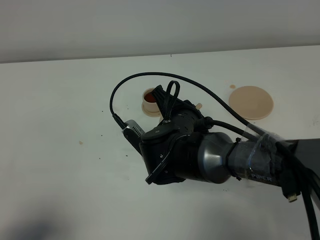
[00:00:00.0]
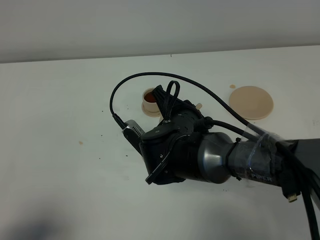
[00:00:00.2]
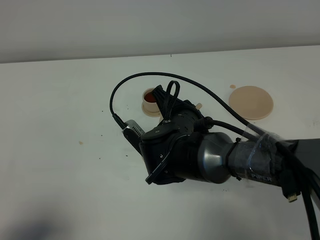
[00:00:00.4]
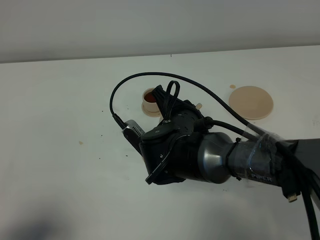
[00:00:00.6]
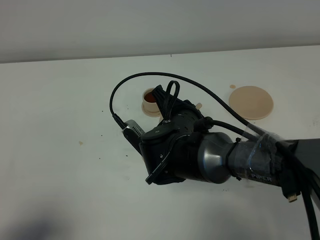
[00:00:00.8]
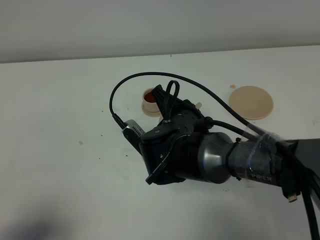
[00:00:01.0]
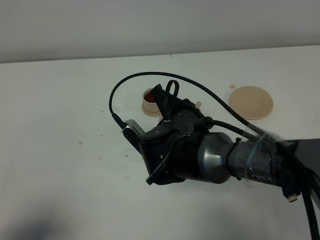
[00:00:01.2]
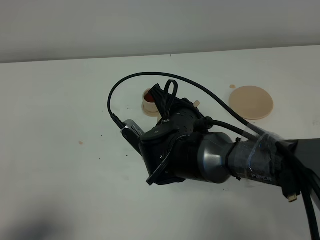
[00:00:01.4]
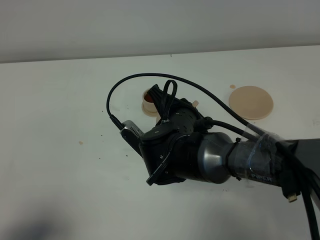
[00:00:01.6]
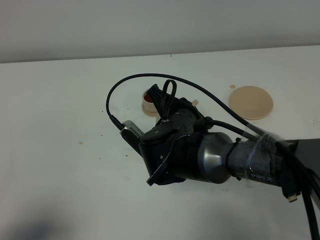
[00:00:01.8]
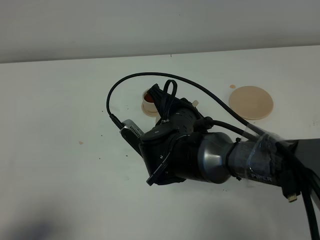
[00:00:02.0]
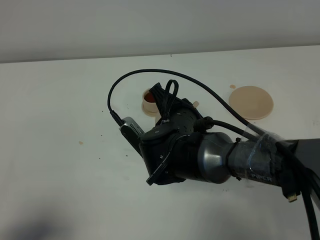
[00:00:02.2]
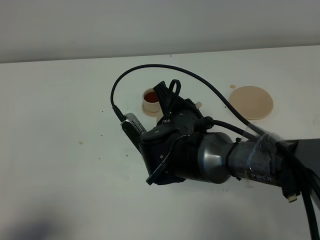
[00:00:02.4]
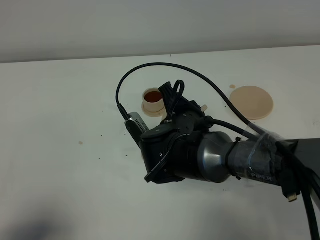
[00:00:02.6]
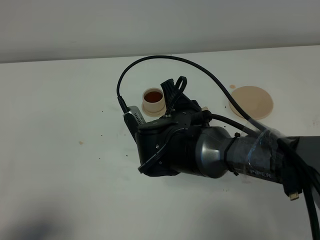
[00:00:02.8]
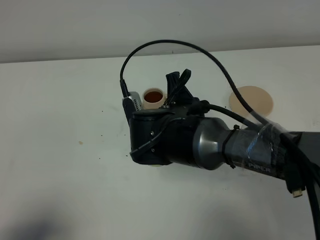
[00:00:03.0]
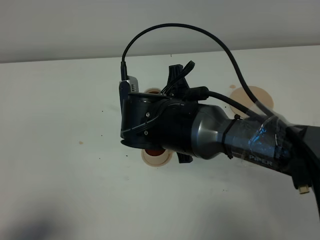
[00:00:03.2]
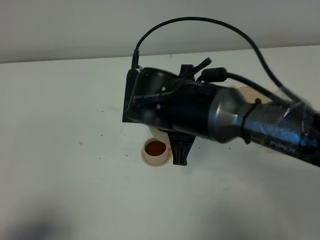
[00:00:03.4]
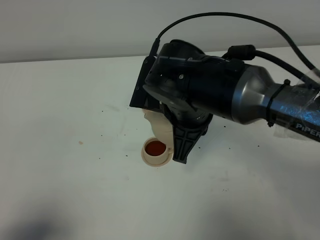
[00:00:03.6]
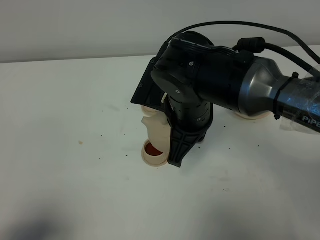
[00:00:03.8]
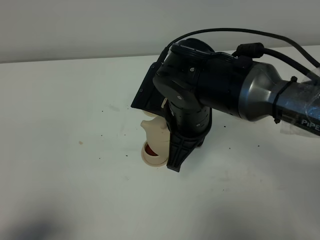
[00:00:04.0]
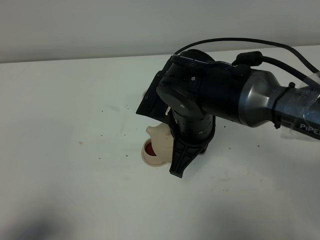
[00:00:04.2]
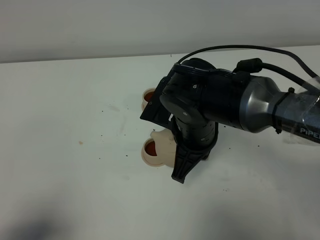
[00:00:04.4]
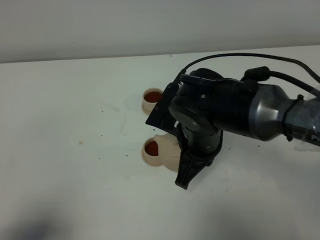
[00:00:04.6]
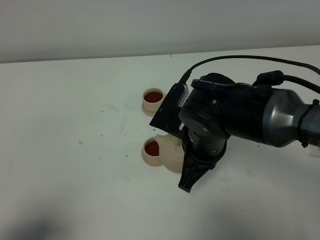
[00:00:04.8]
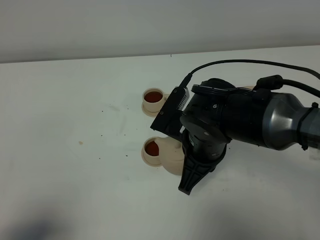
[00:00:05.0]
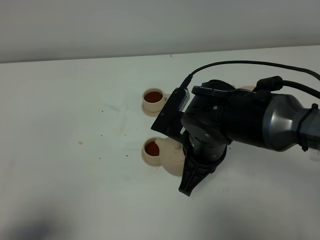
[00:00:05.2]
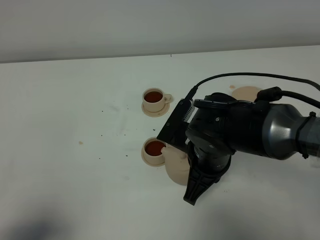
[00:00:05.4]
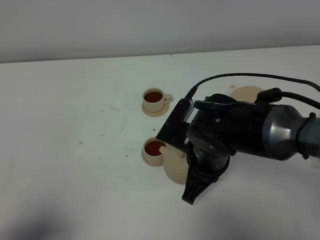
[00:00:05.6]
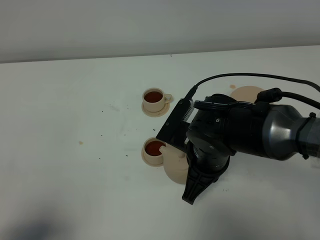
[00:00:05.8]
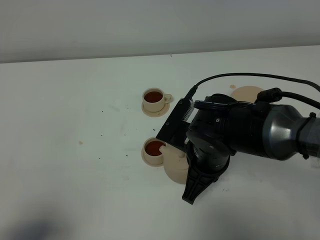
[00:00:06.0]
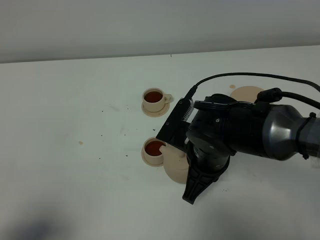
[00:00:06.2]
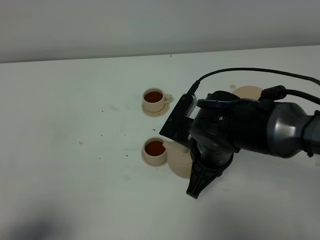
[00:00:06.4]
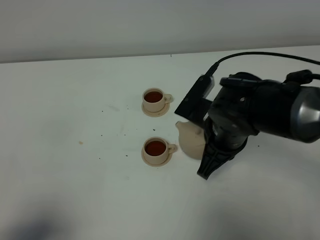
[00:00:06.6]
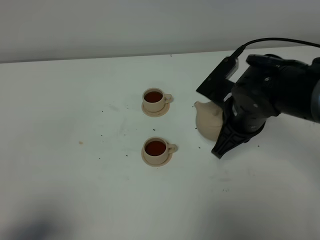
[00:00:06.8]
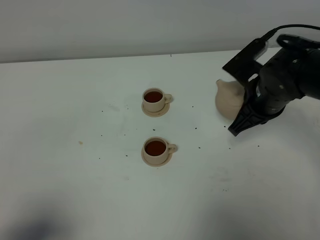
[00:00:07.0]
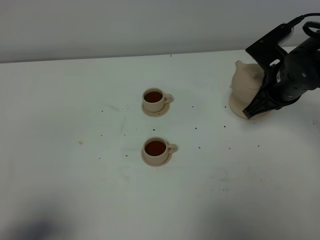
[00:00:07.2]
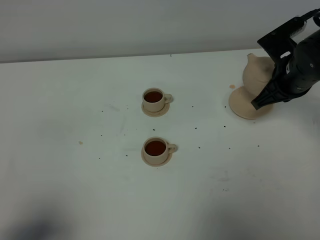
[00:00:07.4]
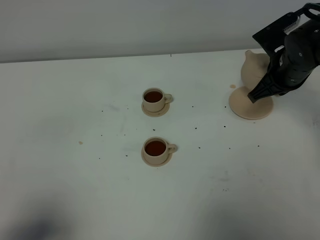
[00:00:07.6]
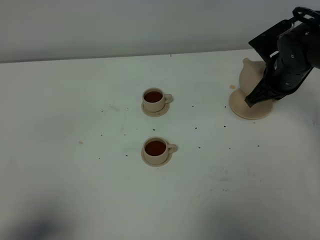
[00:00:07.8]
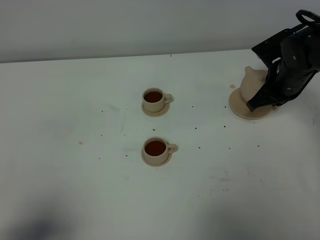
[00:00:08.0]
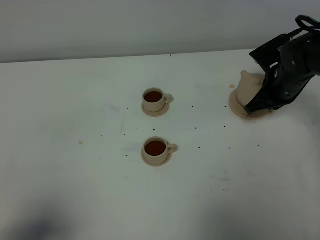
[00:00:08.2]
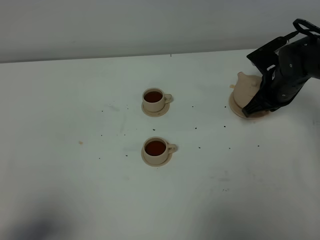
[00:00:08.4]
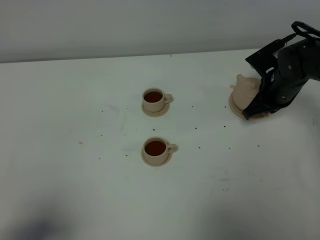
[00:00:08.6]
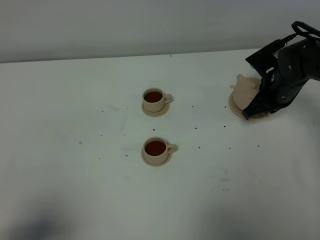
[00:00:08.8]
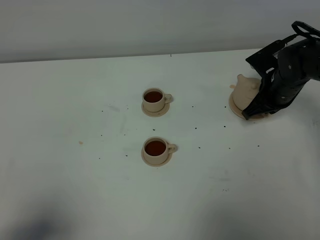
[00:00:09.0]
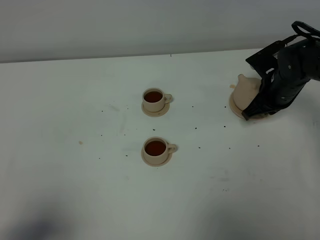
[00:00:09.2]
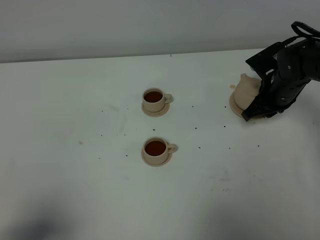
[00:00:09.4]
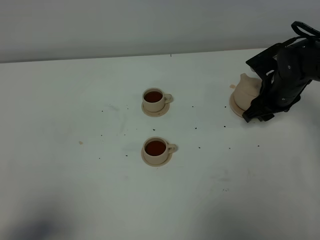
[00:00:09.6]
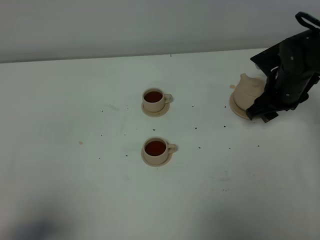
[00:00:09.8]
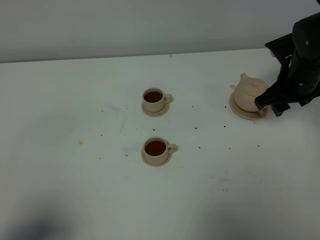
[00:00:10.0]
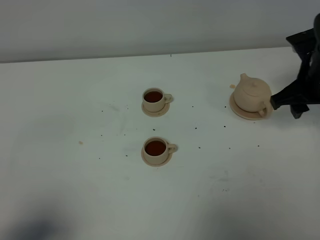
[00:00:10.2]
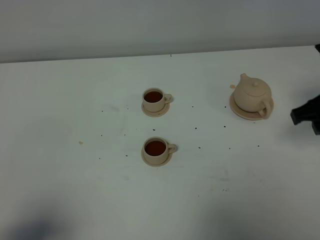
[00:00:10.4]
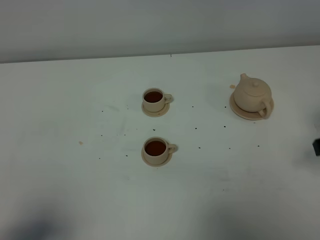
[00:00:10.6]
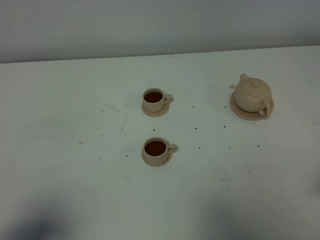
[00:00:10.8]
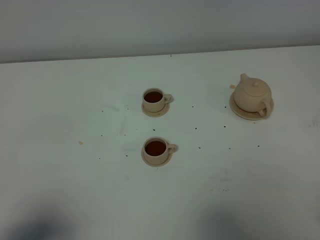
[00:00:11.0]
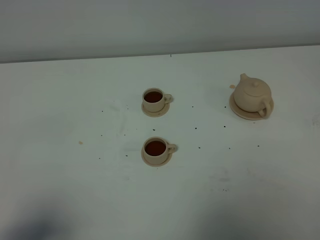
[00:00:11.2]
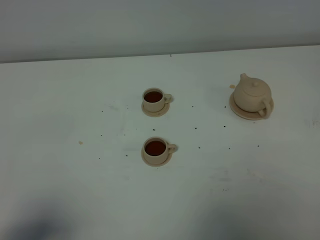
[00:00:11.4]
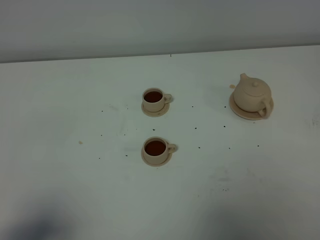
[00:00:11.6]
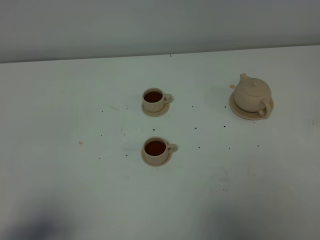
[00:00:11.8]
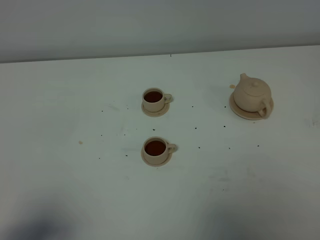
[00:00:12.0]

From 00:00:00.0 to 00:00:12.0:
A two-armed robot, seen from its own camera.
Task of the whole recording: grasp the brown teapot and pour the tea into the two brown teacups one by one, put the brown teapot back in its original place.
Step, from 00:00:00.0 to 00:00:03.2: Pour tea into the teacup with the right gripper.
From 00:00:00.0 to 00:00:01.6: The two grippers keep their place.
From 00:00:04.4 to 00:00:06.0: The grippers stay close to where they were, moving slightly.
From 00:00:06.0 to 00:00:07.6: The right gripper moves forward and to the right, approximately 20 cm.
From 00:00:07.6 to 00:00:09.0: The right gripper moves downward, roughly 5 cm.
From 00:00:09.0 to 00:00:10.4: The right gripper shifts some 20 cm backward, upward and to the right, and opens its fingers.
From 00:00:10.4 to 00:00:12.0: The right gripper heads backward, covering about 25 cm, and closes.

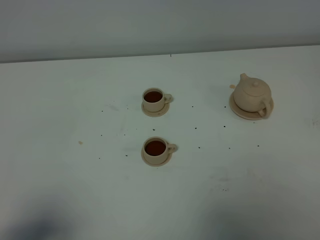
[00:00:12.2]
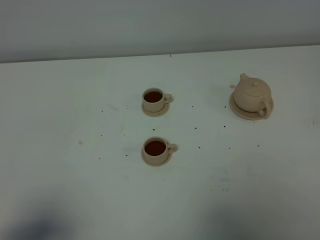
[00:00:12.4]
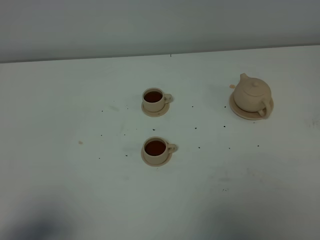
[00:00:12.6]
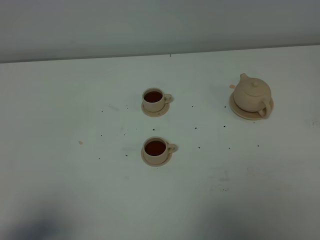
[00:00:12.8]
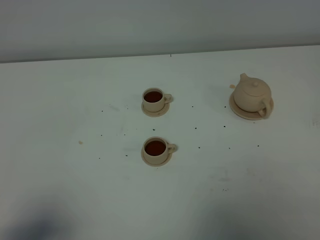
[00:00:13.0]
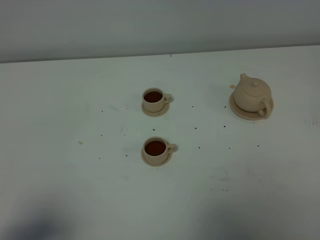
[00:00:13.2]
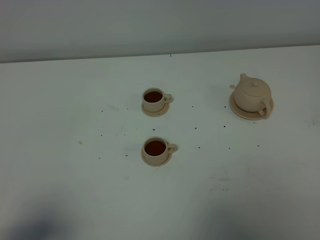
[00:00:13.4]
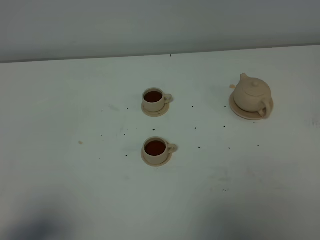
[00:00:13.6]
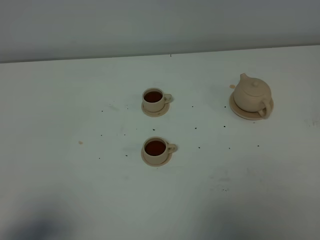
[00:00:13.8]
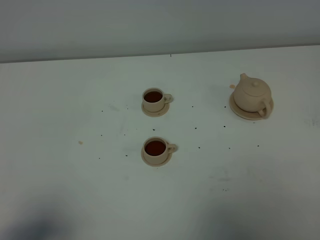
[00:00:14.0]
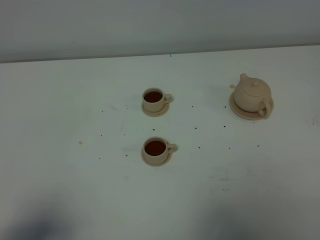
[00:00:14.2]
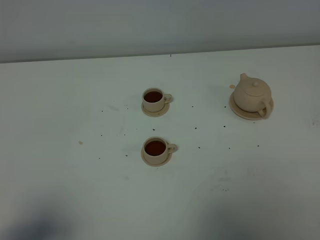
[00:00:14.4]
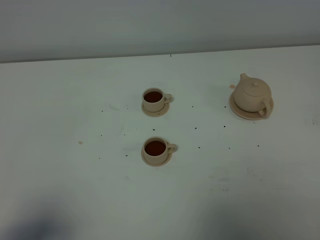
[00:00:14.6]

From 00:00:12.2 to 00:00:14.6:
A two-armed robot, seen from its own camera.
Task of the whole recording: grasp the brown teapot and pour the tea into the two brown teacups one by one, put the brown teapot back in its original place.
From 00:00:13.4 to 00:00:14.6: Both grippers stay put.
